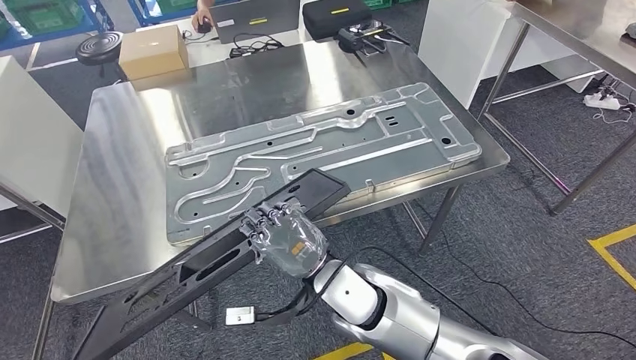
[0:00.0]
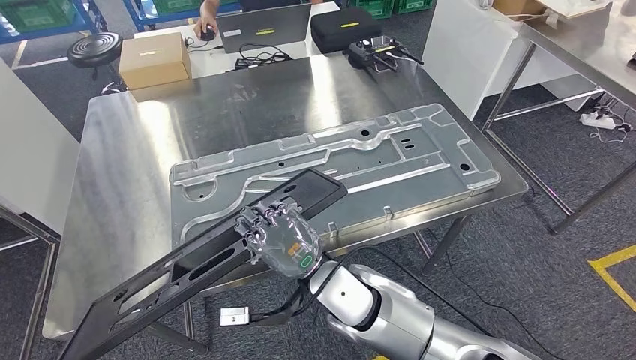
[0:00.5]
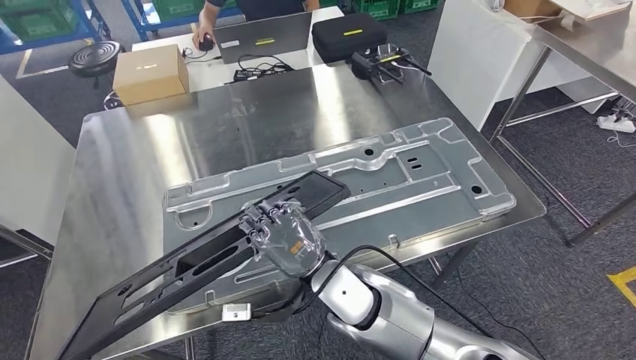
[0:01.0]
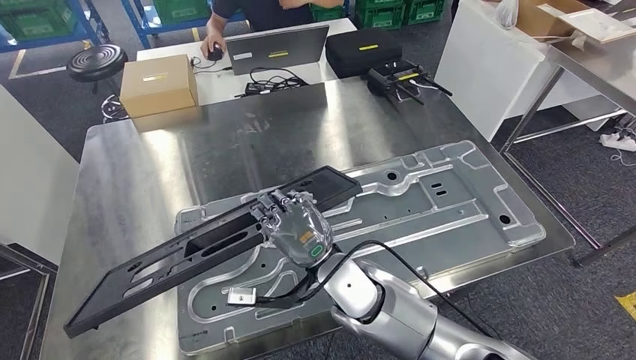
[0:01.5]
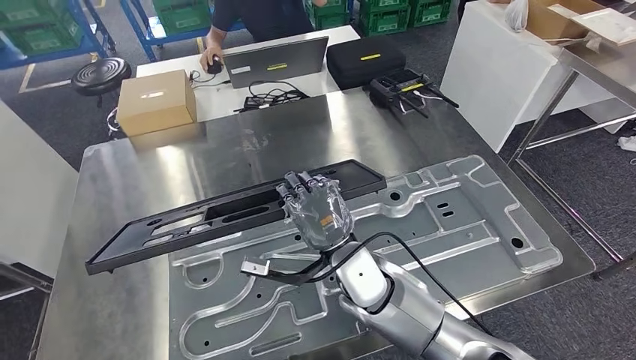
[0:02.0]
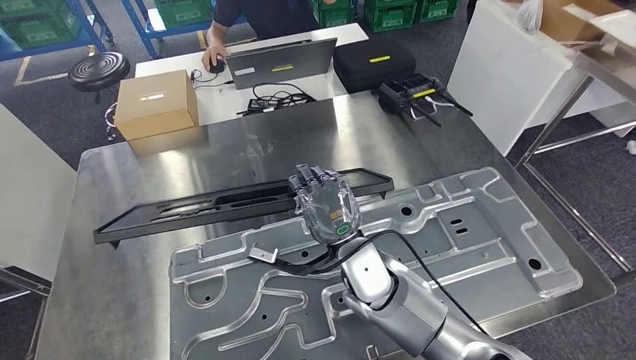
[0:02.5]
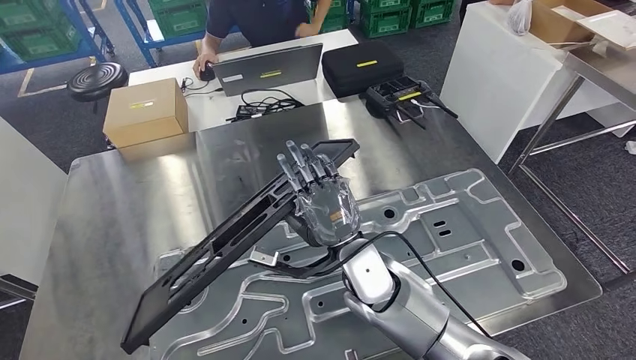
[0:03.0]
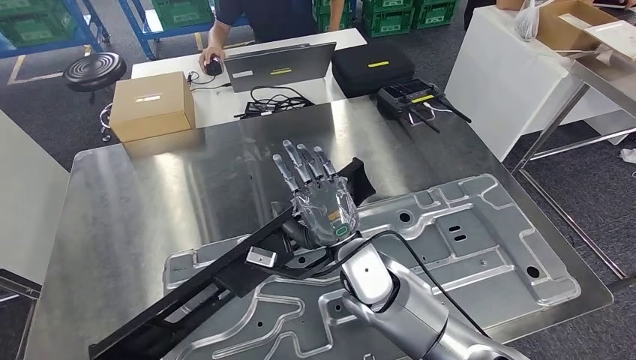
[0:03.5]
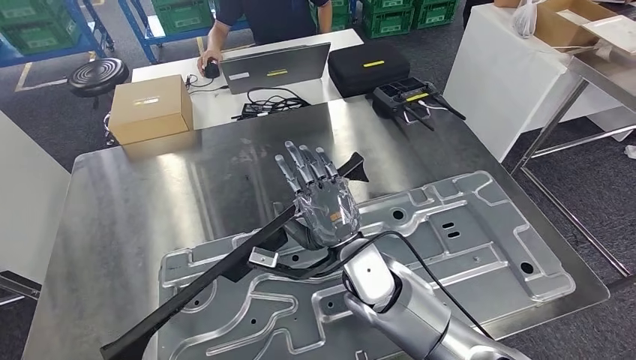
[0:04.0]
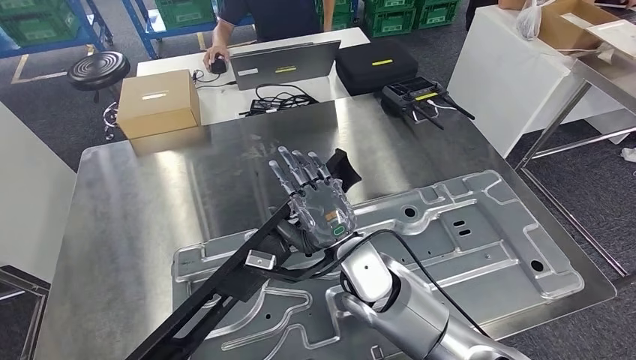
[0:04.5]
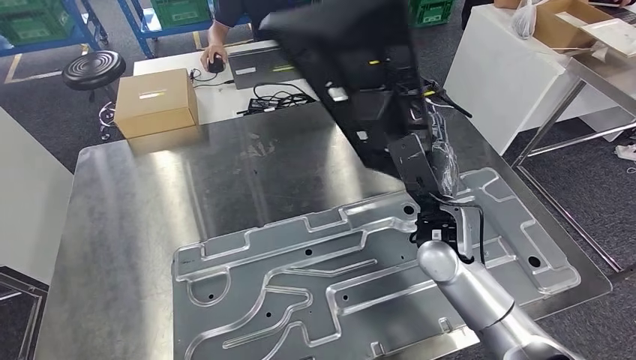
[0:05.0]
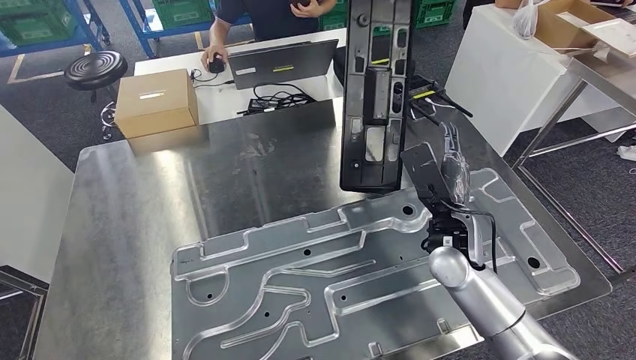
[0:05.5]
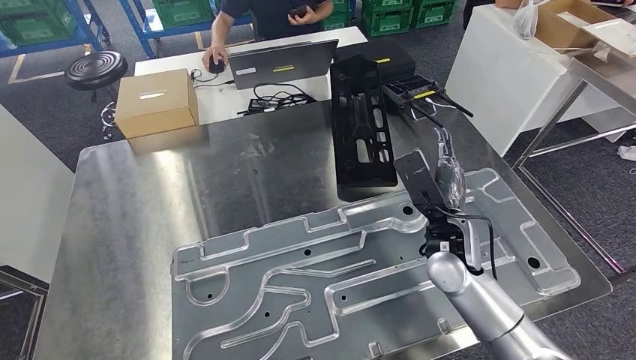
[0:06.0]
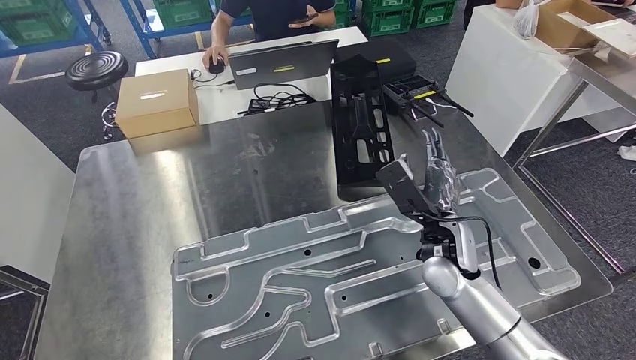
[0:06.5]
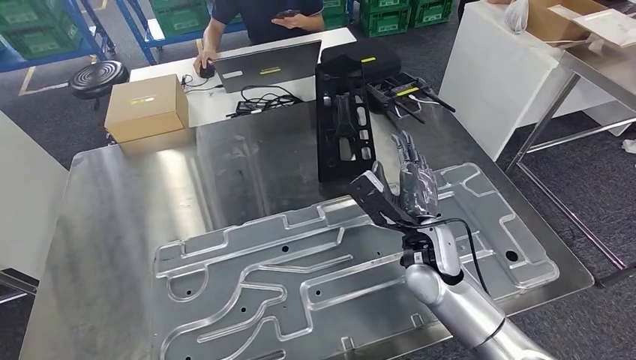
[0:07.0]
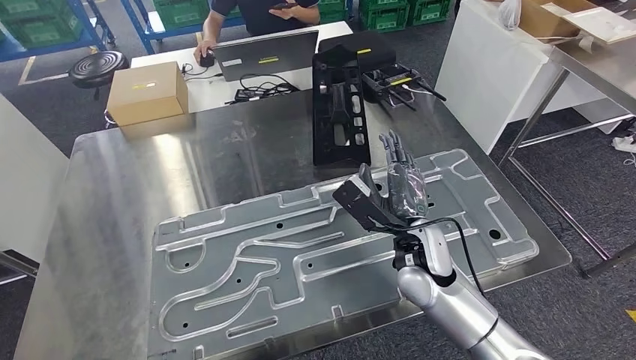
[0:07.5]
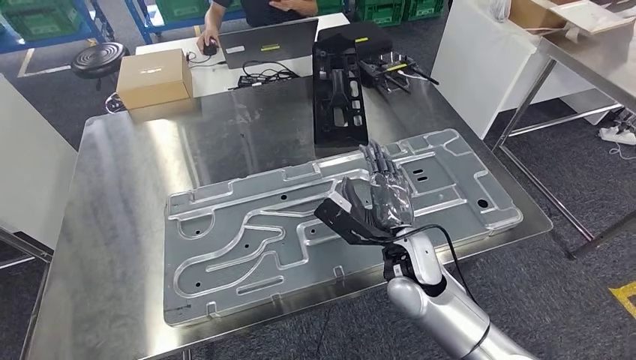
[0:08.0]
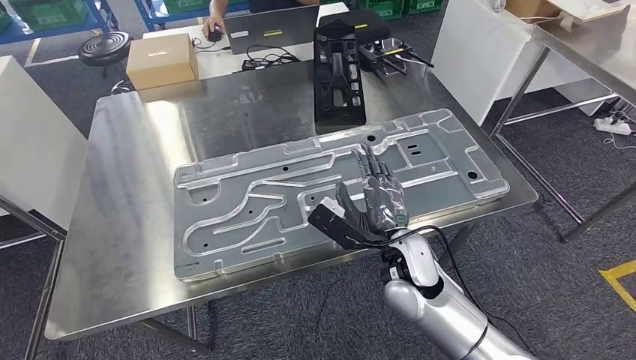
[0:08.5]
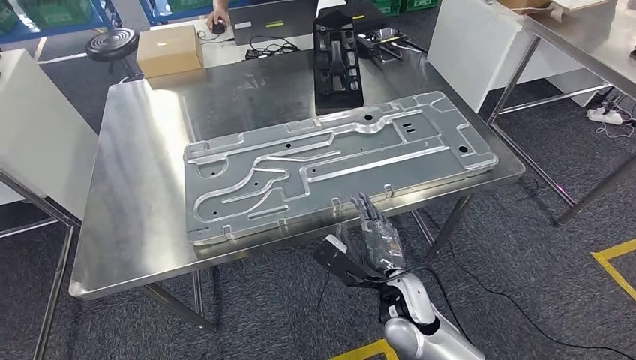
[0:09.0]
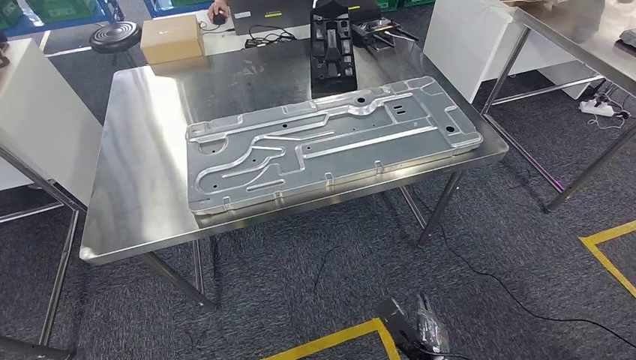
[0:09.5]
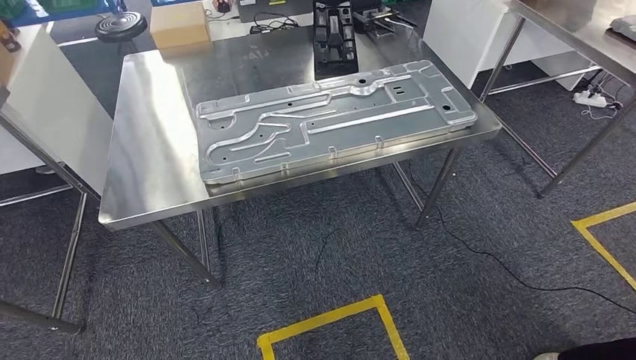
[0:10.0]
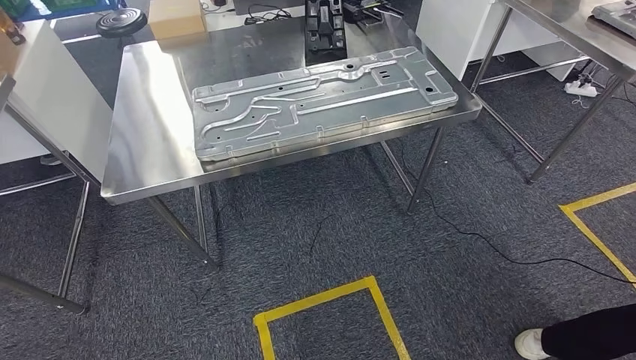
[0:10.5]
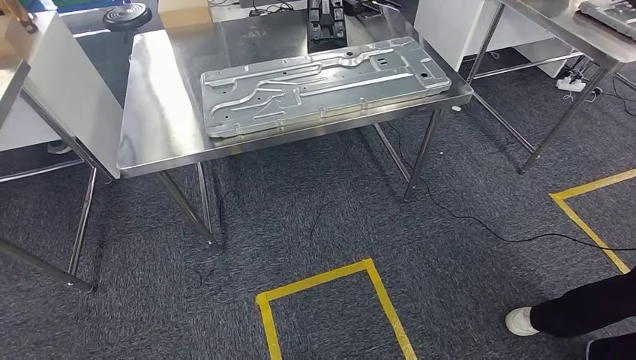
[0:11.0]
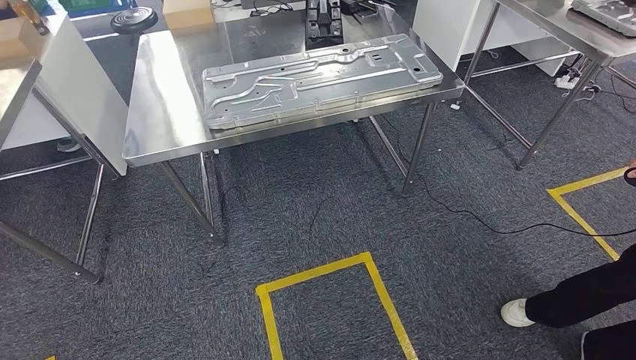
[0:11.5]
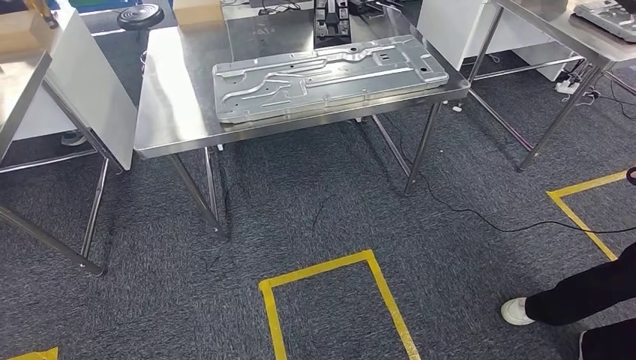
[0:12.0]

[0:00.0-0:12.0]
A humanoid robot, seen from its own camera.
Step, 0:00.0 to 0:09.0: Insert the large material into the corresponding slot on the workbench.

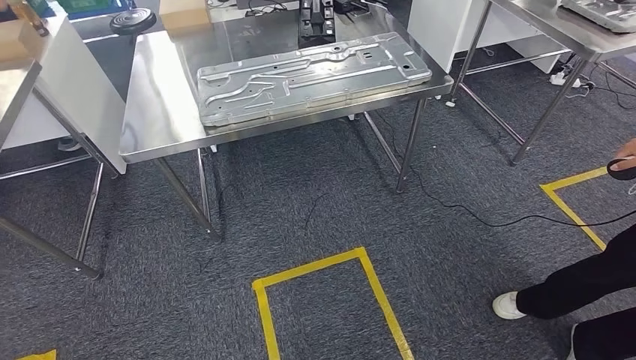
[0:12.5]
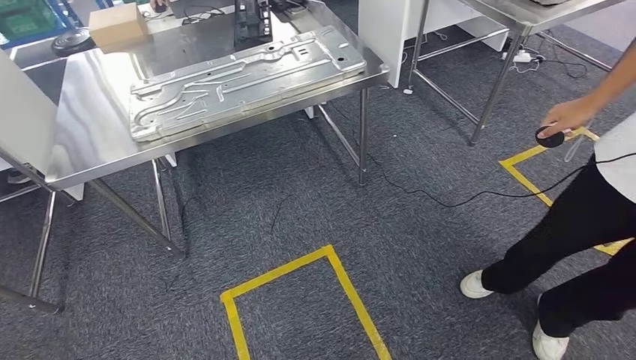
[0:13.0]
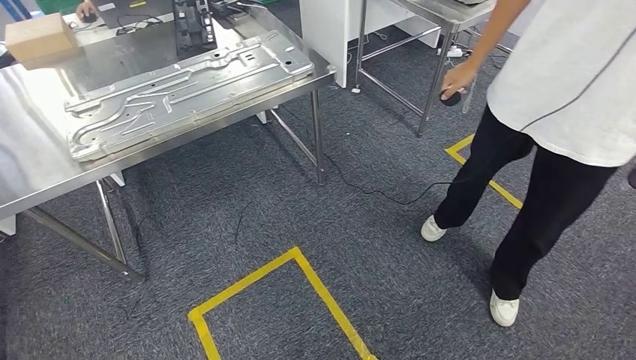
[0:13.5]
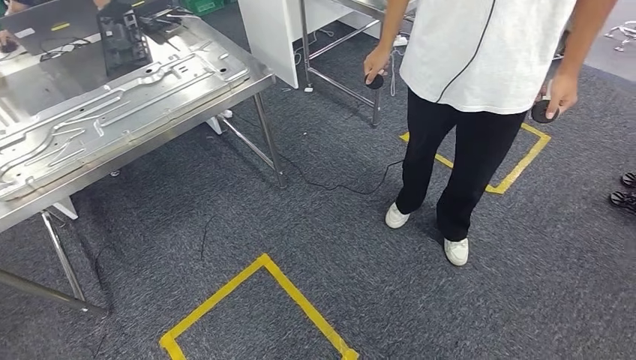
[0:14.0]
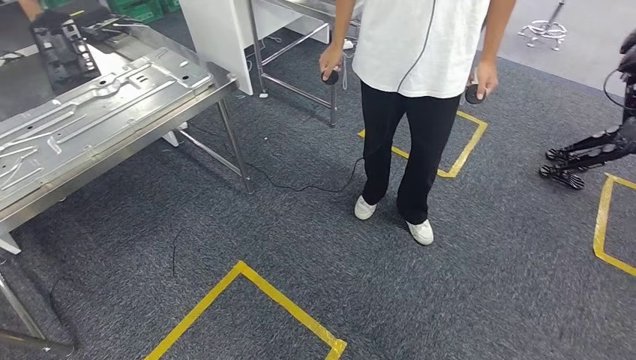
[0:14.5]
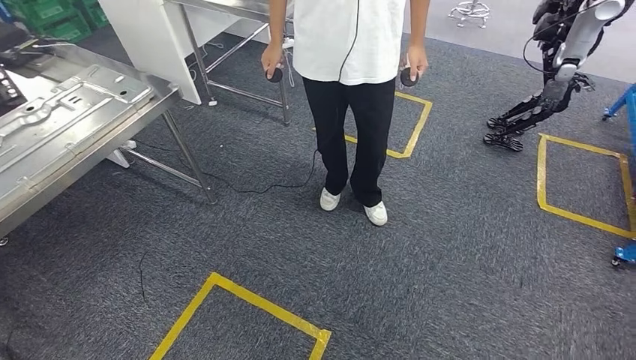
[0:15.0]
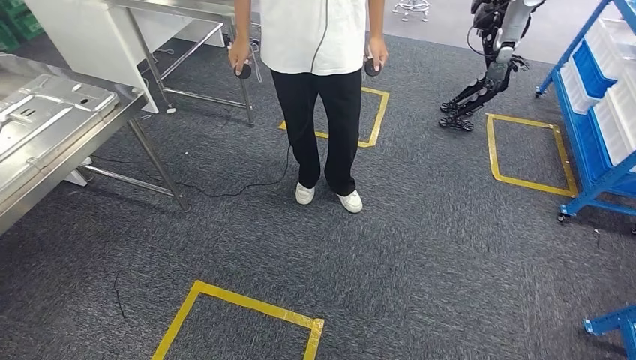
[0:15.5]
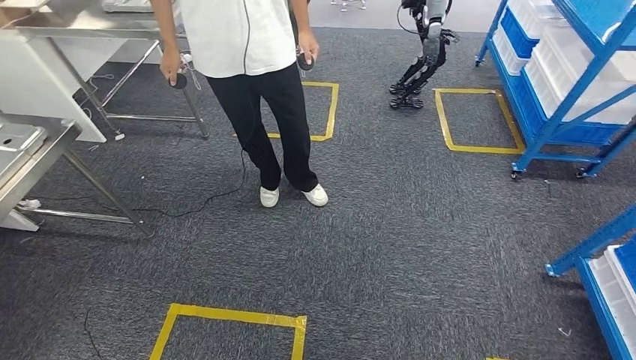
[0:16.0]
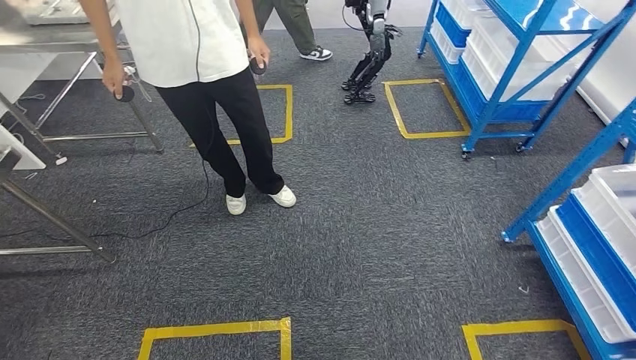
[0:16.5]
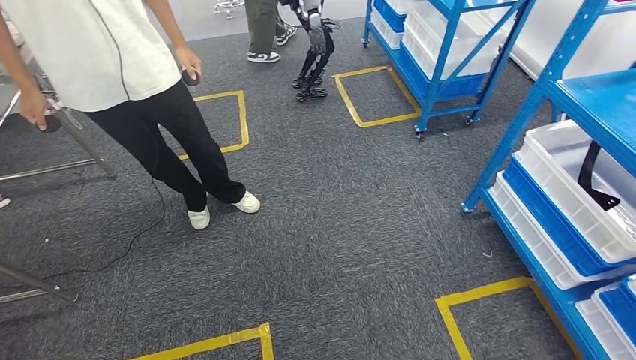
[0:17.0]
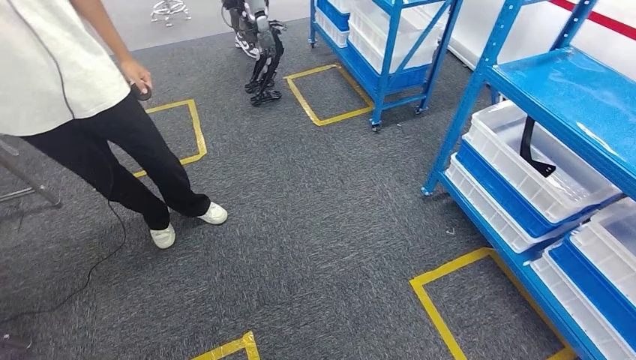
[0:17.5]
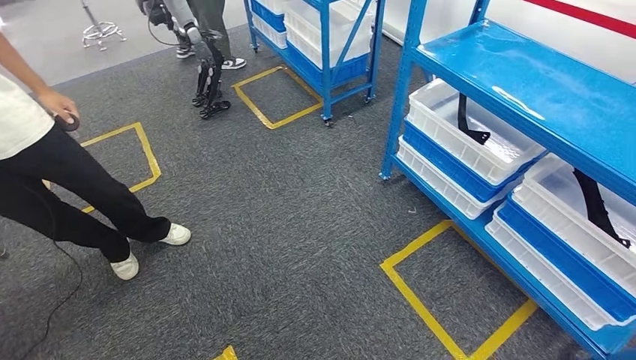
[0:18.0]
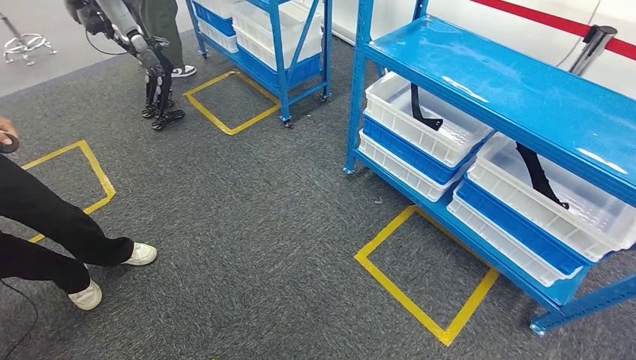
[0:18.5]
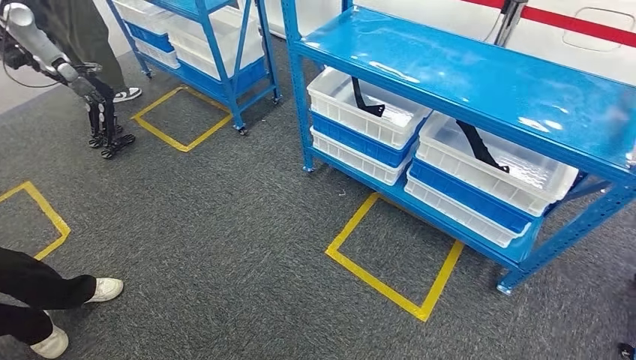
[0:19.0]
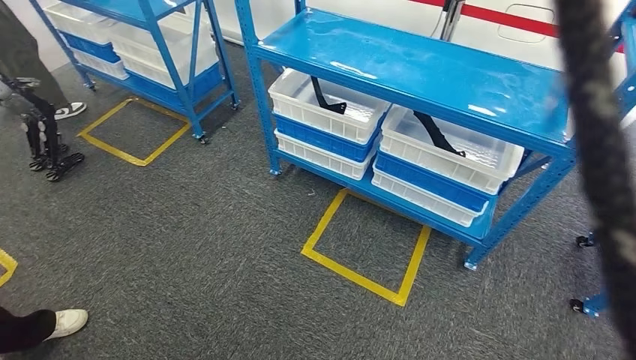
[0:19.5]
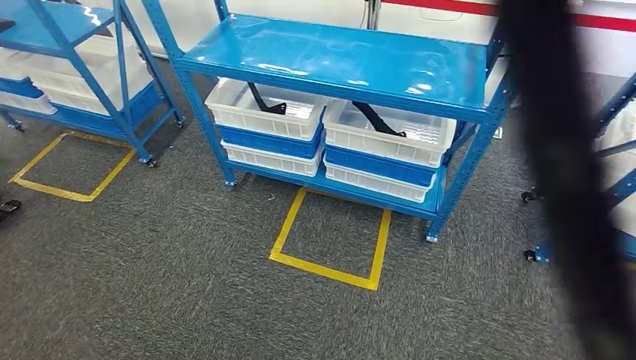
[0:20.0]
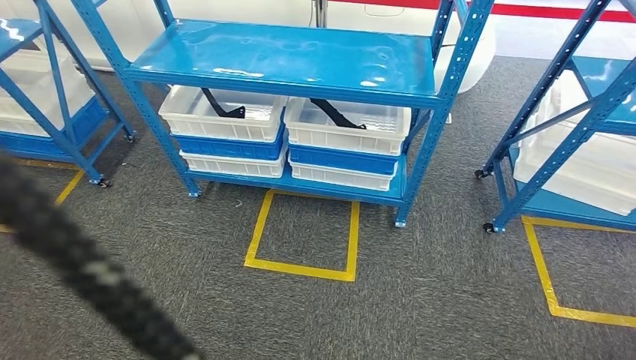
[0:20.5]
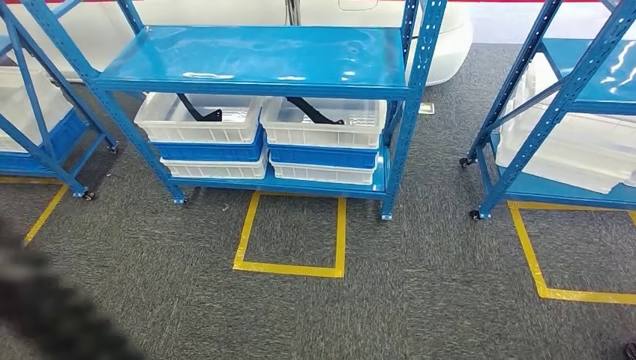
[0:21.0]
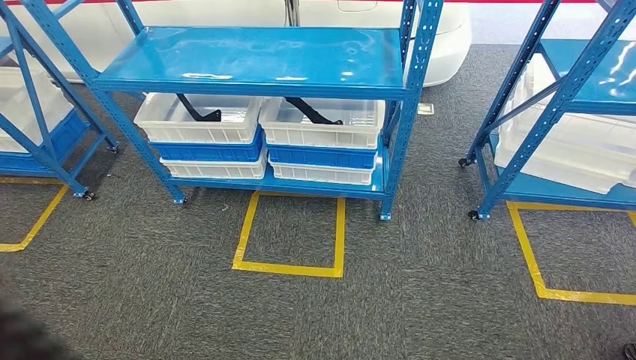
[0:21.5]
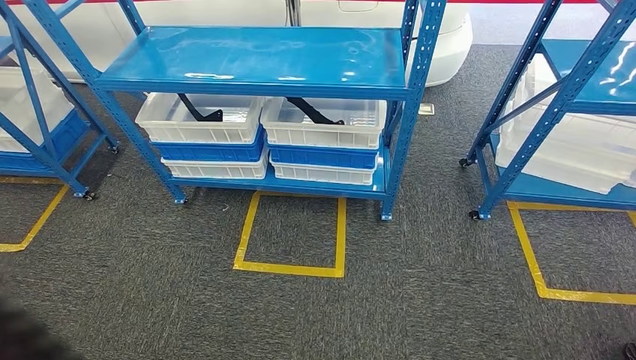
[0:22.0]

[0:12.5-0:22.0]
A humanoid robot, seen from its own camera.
Step, 0:12.5 to 0:22.0: Move to the initial position of the shelf.
